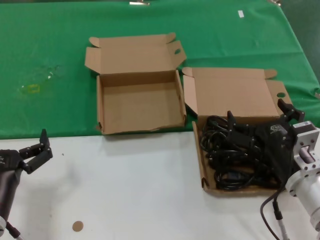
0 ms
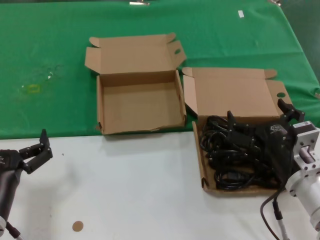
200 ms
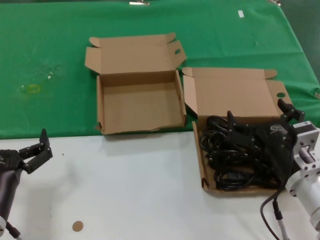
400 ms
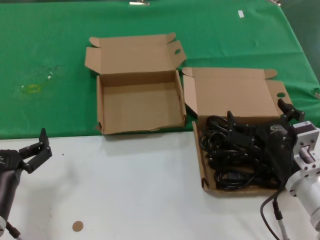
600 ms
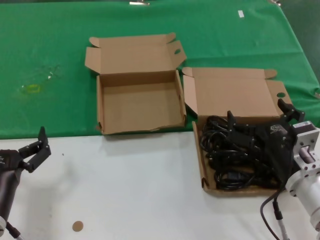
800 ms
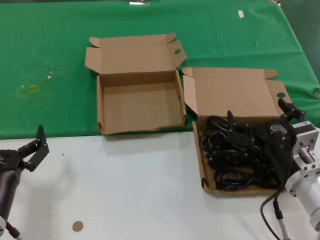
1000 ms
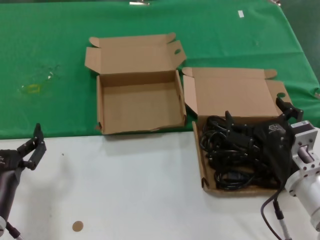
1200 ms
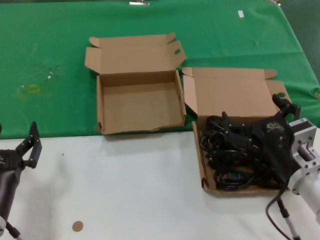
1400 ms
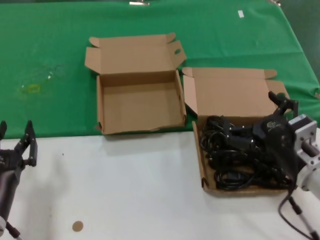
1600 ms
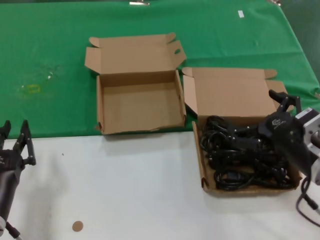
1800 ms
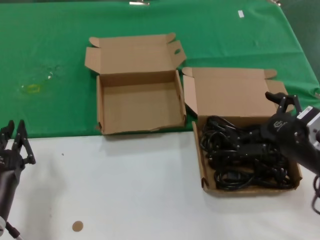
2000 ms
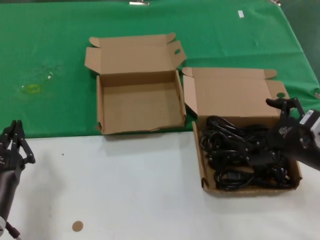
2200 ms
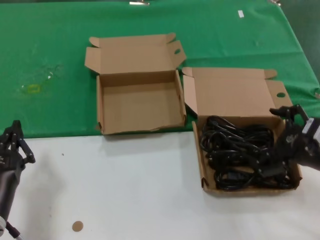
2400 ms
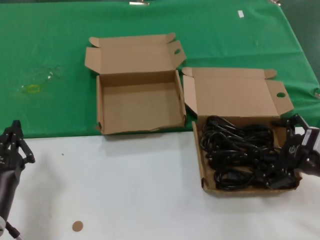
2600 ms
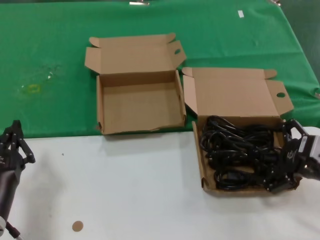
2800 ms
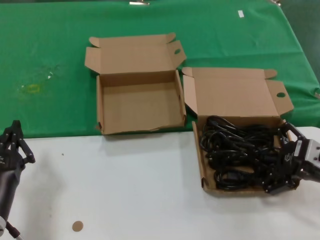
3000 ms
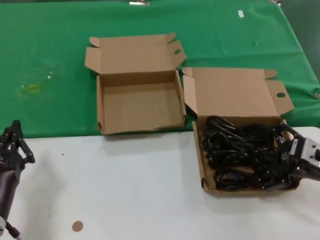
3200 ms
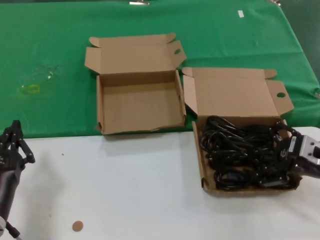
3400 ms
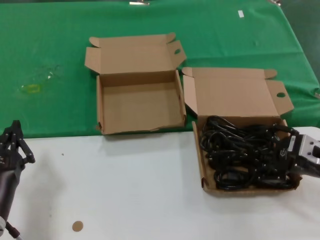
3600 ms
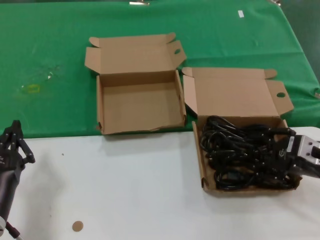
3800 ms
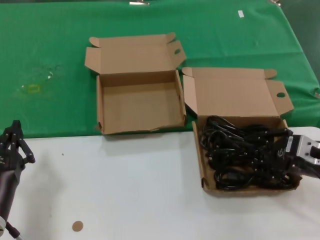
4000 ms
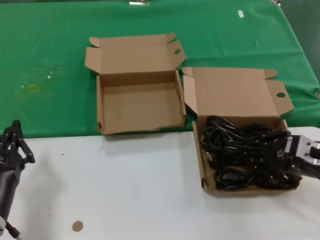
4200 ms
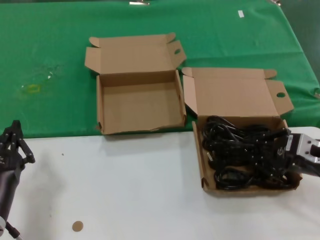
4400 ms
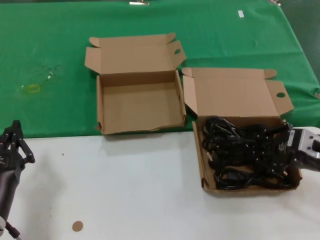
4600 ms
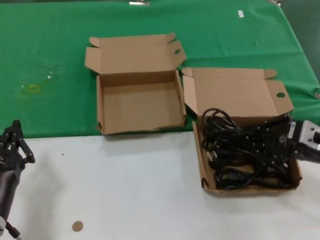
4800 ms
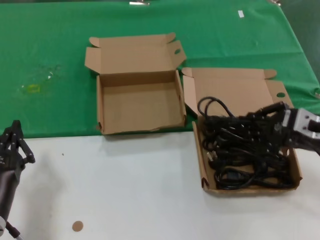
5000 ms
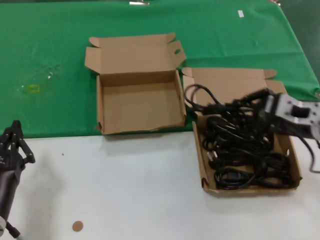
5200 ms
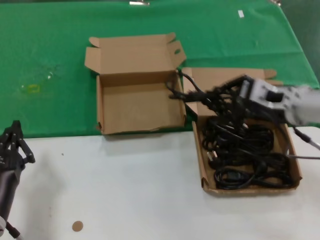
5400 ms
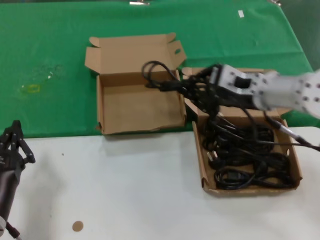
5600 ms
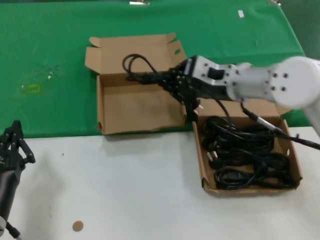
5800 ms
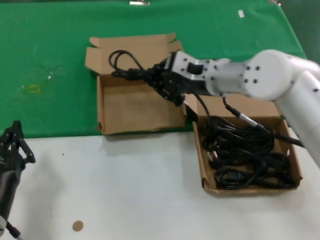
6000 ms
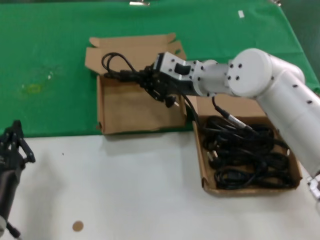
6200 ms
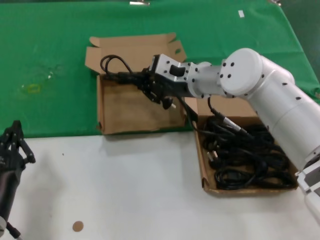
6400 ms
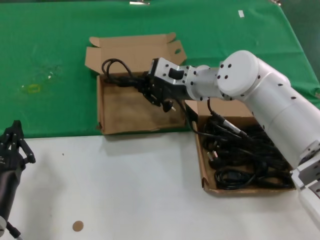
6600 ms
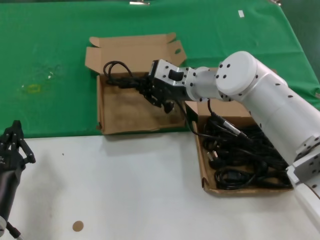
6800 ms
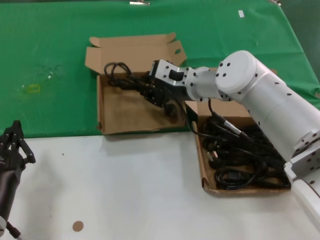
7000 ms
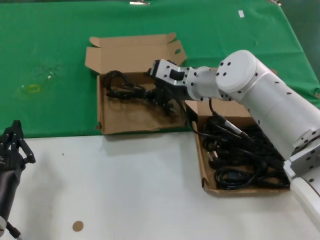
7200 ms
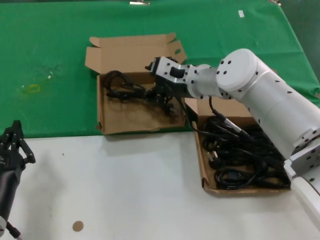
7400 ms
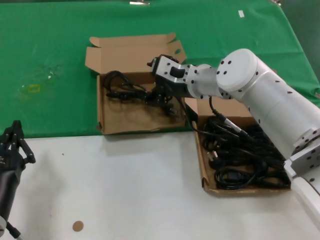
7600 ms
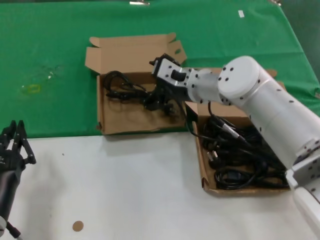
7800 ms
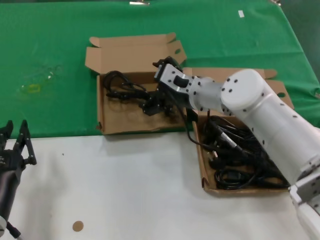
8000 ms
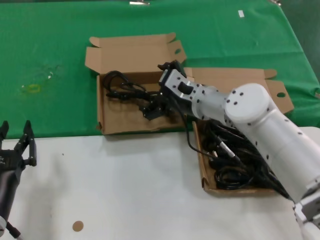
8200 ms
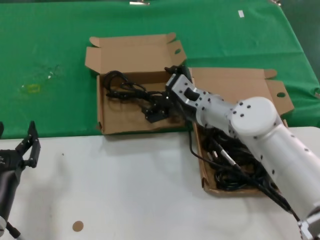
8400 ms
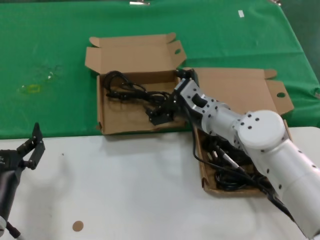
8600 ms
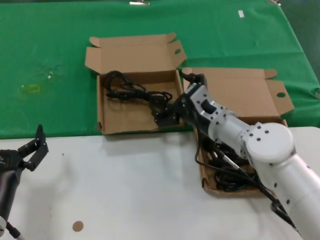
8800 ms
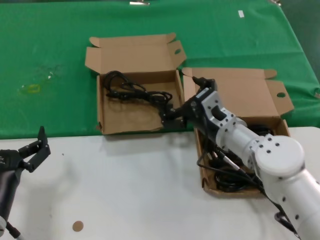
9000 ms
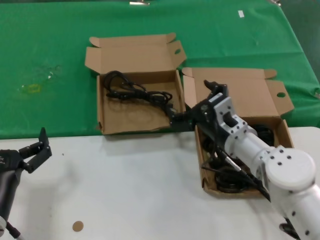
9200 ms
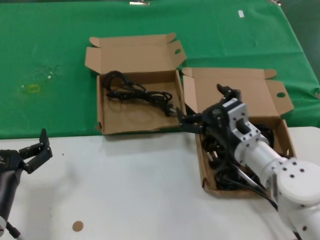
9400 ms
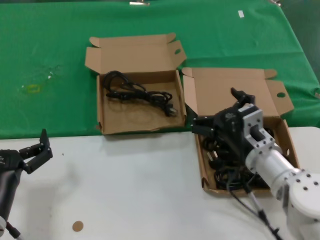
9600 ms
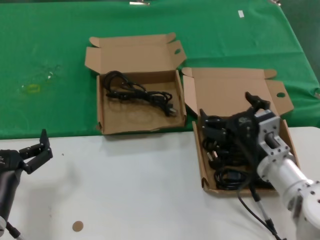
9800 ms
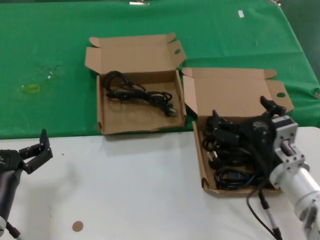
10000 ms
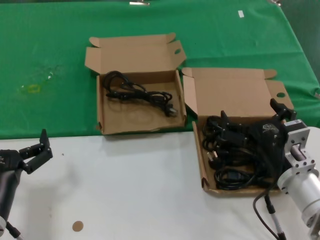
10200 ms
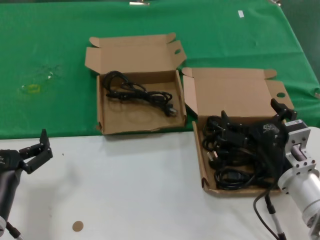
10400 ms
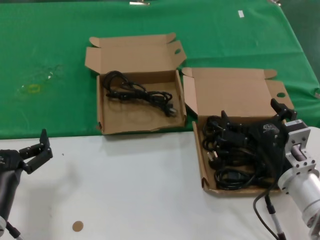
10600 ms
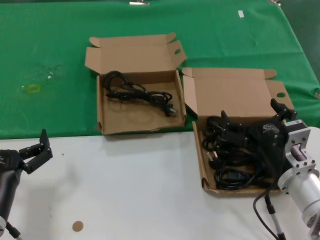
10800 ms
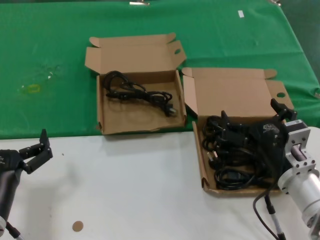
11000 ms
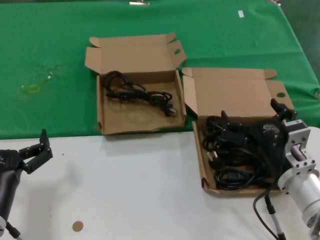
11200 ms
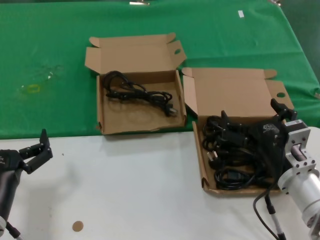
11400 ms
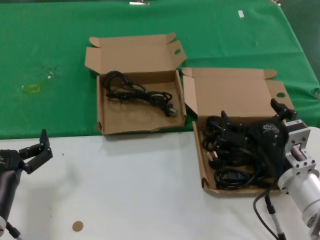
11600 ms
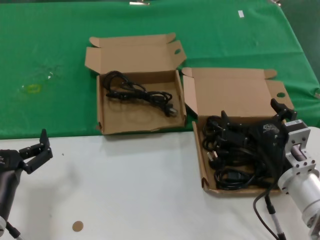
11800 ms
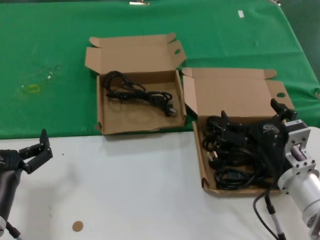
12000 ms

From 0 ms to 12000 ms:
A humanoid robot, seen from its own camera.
Task of the whole recording: take the parts from the box containing them and put them into an empty box.
Step, from 0 ms to 4200 ms: Grasp the data cable.
Step, from 4400 ms to 7200 ms: Place the data cable in the another box.
From 0 ms to 1600 ms: The hands move only a little.
From 1600 ms to 3000 ms: The right hand is displaced to the right by approximately 10 cm.
From 3000 ms to 4400 ms: The hands move only a little.
From 4400 ms to 6000 ms: The right hand shifts approximately 25 cm to the left, forward and upward.
From 6000 ms to 7600 ms: The right hand changes place by some 5 cm.
From 7600 ms to 9000 ms: The right hand heads backward and downward, covering about 15 cm.
From 9000 ms to 10400 ms: The right hand heads backward and to the right, covering approximately 15 cm.
From 10400 ms to 12000 ms: Neither hand changes place.

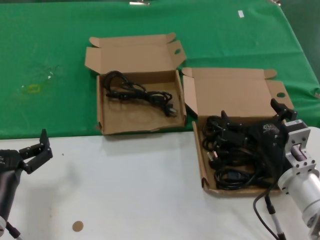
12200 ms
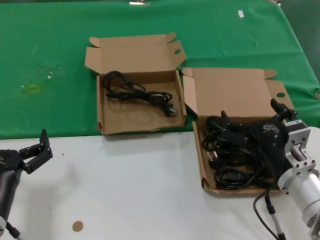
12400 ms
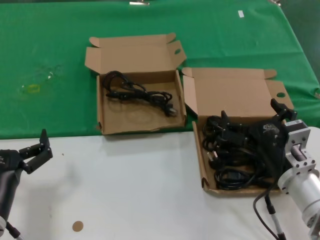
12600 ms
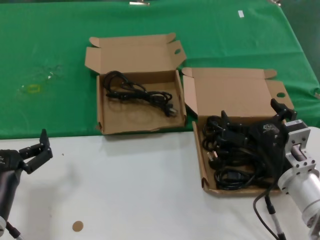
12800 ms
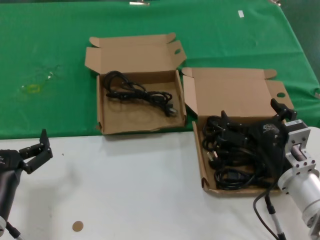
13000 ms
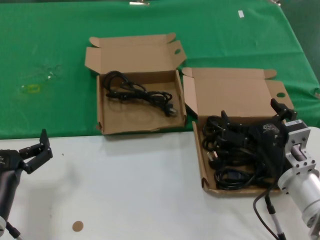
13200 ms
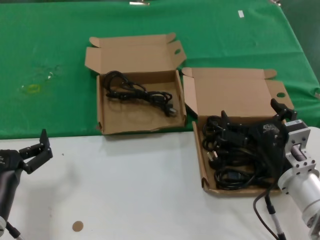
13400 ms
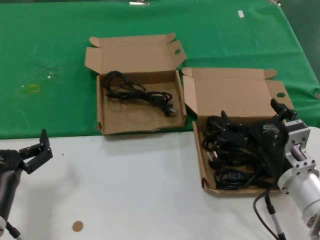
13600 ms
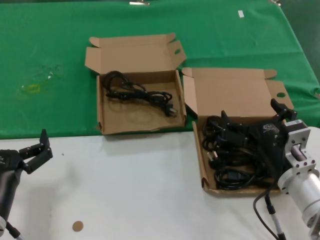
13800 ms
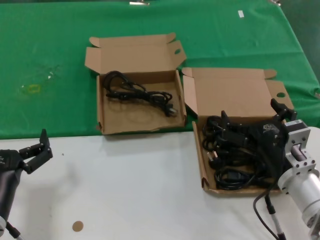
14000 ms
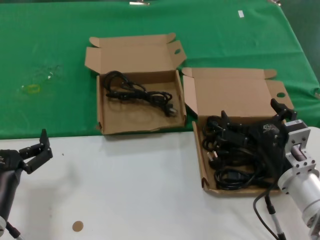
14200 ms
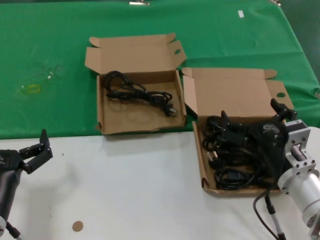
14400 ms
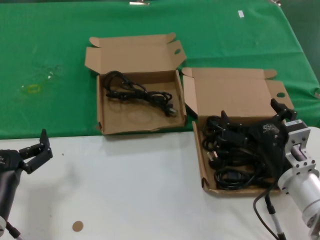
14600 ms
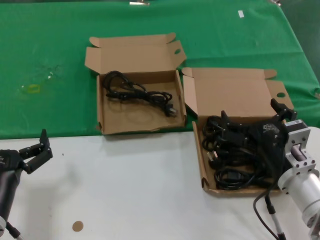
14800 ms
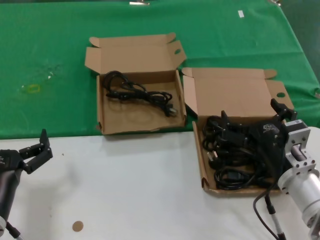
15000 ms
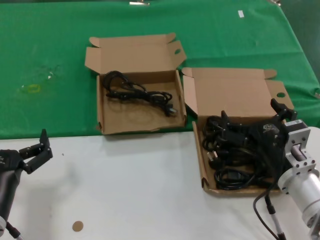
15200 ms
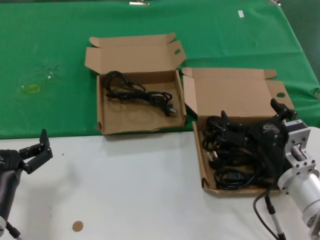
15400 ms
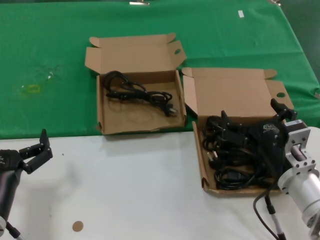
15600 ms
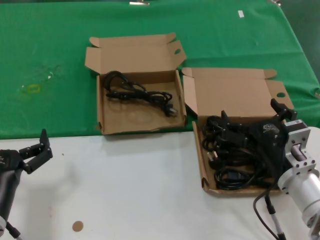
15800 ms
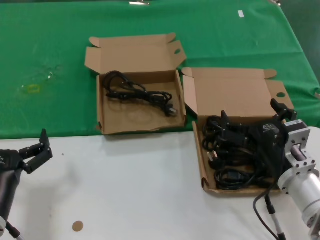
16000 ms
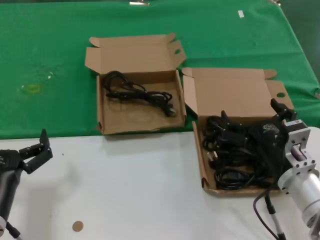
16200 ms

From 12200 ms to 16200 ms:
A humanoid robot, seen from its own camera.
Task of the whole recording: take the parts from the box containing them and put them into an empty box.
From 12200 ms to 16200 ms: Both hands stay about where they are.
